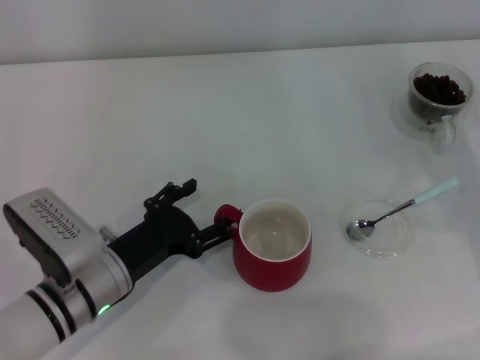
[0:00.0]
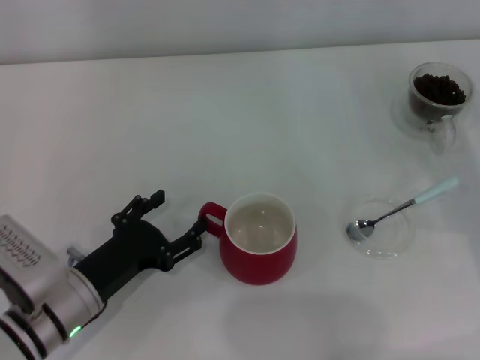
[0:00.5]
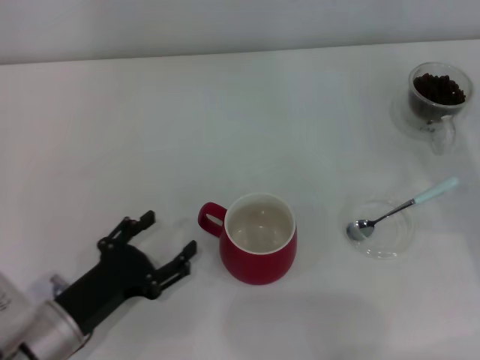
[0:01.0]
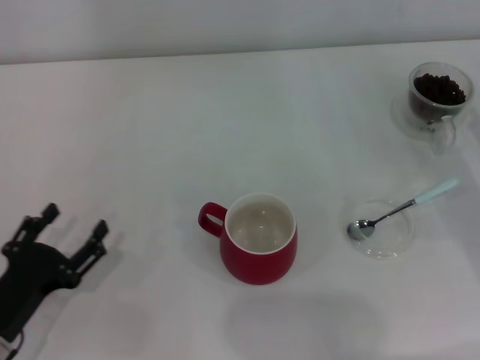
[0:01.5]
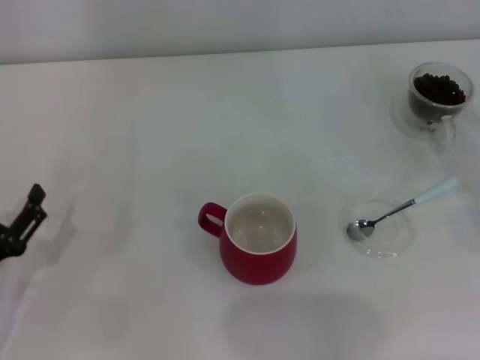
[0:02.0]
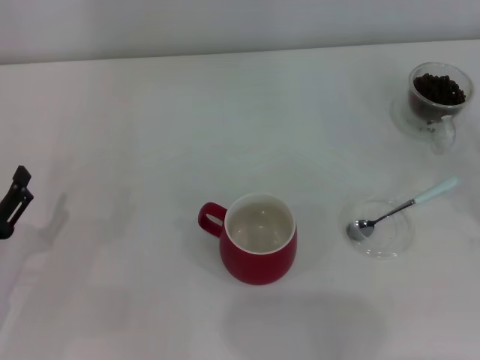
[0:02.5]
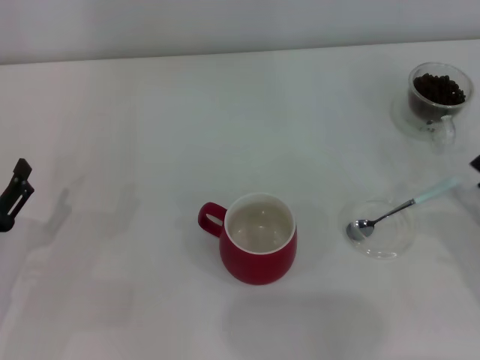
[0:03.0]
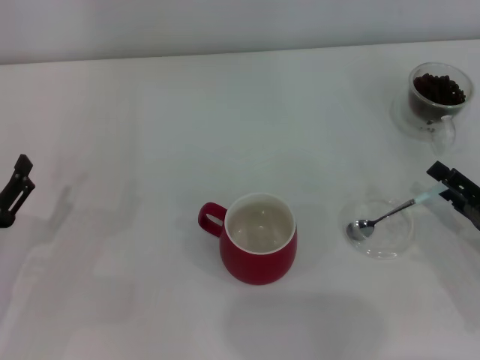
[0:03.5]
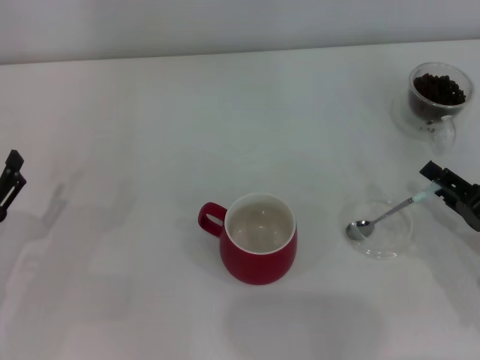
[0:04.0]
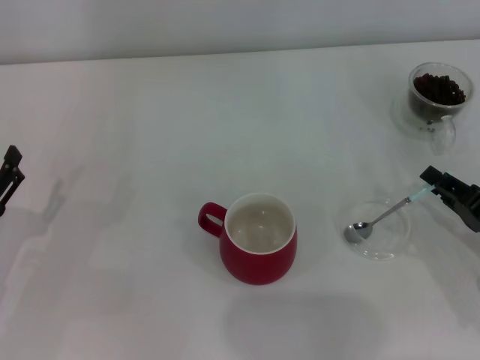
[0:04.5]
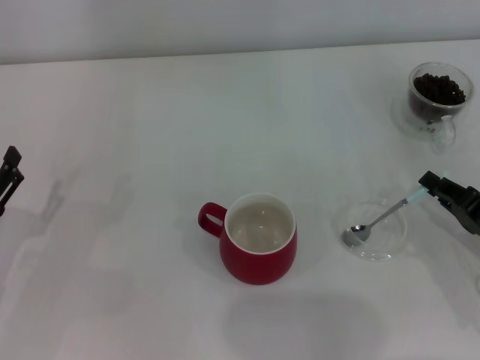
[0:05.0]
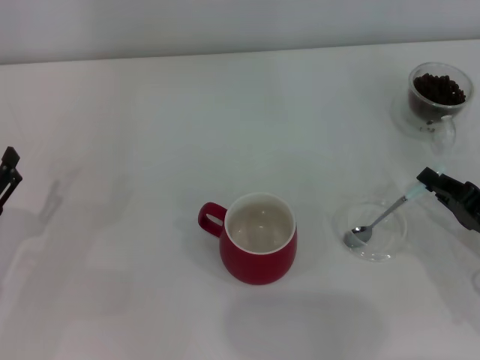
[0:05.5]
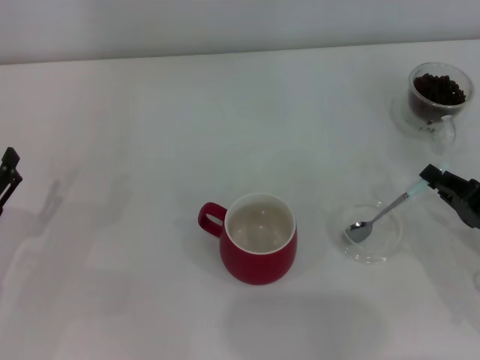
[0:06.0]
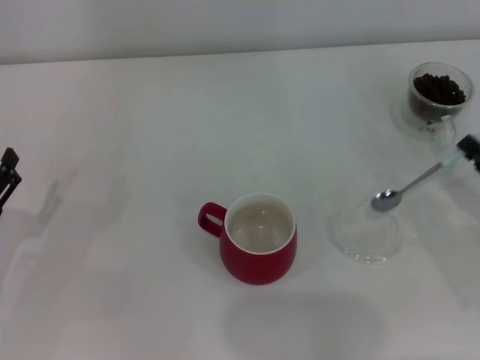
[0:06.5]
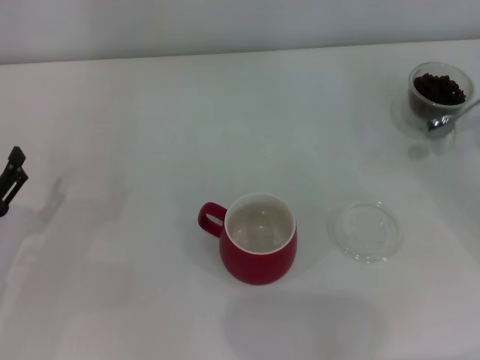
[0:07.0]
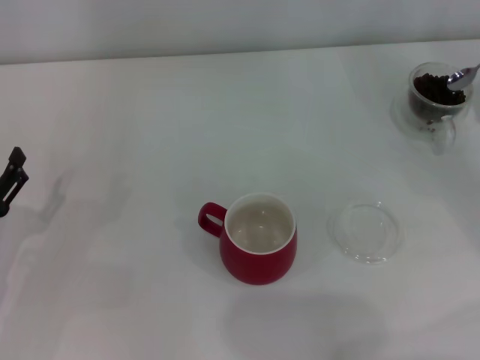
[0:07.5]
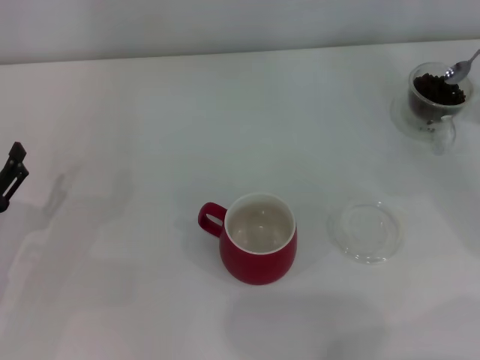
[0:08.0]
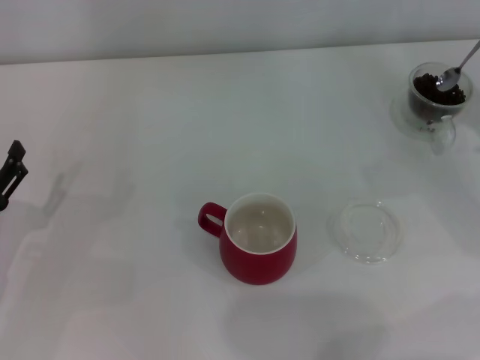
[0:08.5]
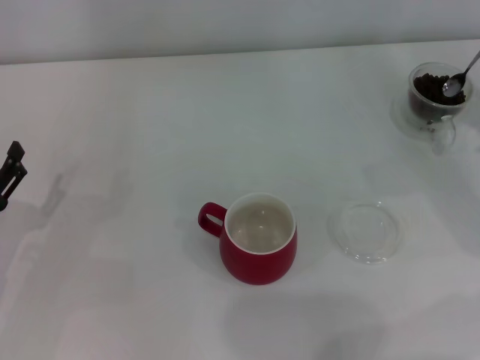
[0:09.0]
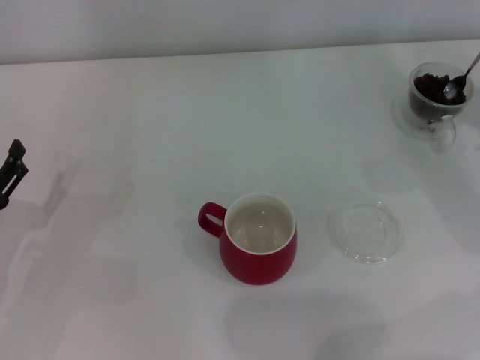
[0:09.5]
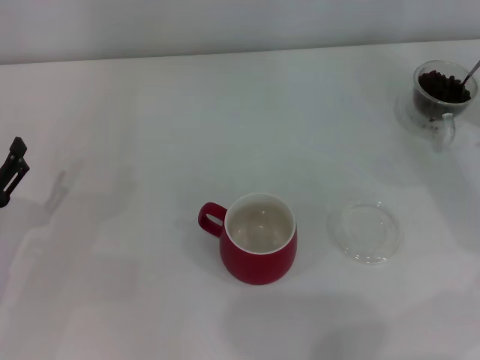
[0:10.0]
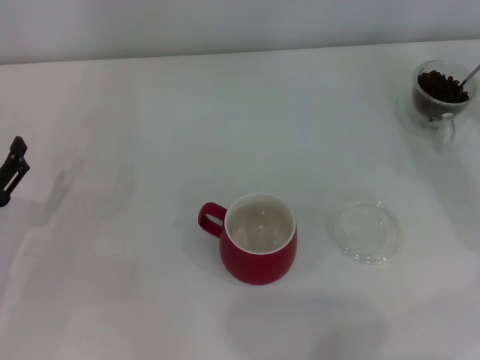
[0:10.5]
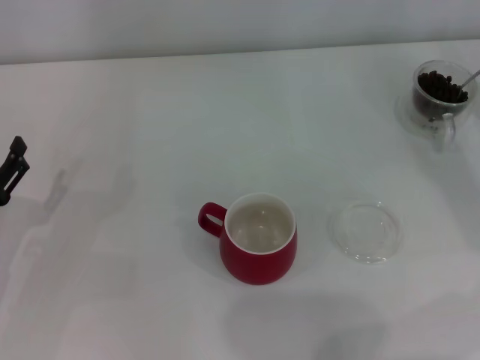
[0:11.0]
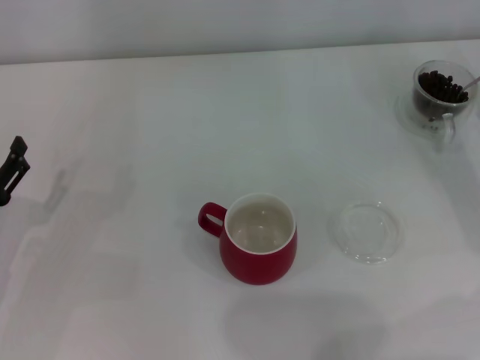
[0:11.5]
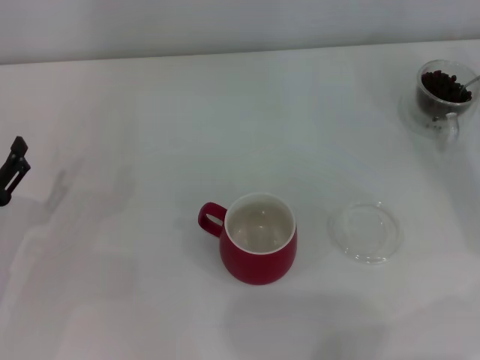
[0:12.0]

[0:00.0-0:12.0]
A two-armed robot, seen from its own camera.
Task of the whole recording: Use a blue spoon to take out the coffee beans from the glass and pour them into the red cup.
Step, 1.5 to 6.5 s: Pick up the spoon with the right gripper.
0.0 to 2.0 s: The left gripper moves to the left and backward, some 15 cm.
2.0 to 4.0 s: The right gripper heads to the left, covering about 10 cm.
4.0 to 6.0 s: The right gripper closes.
6.0 to 8.0 s: The right gripper heads forward, upward and to the right, covering roughly 15 cm.
8.0 to 10.0 s: The grippers move only a little.

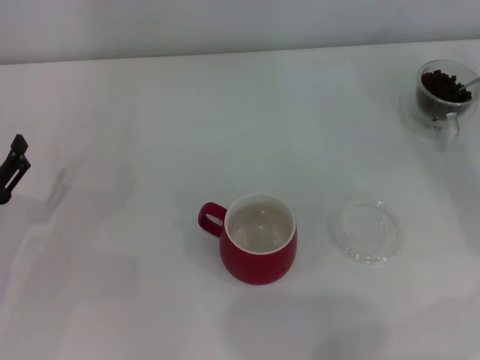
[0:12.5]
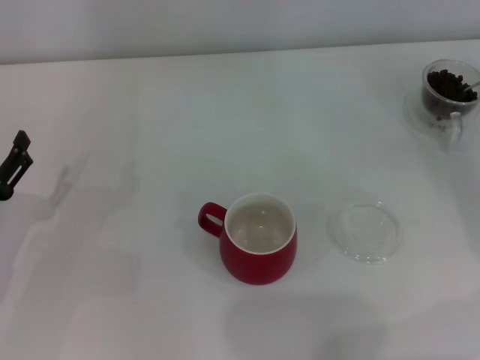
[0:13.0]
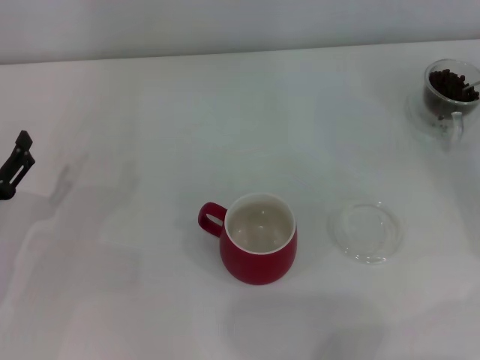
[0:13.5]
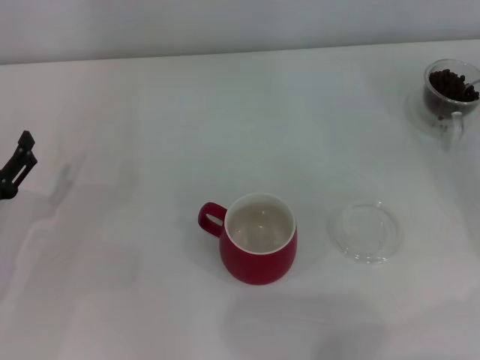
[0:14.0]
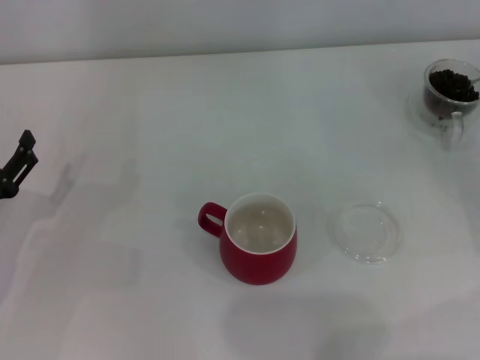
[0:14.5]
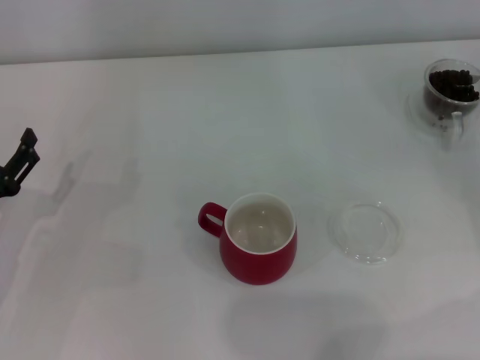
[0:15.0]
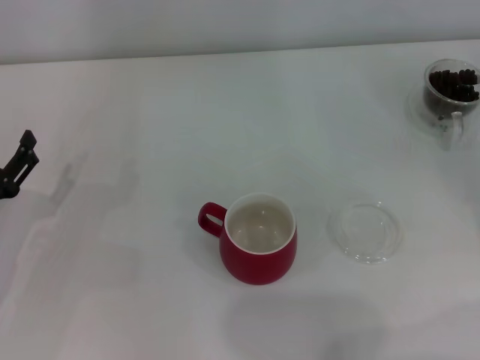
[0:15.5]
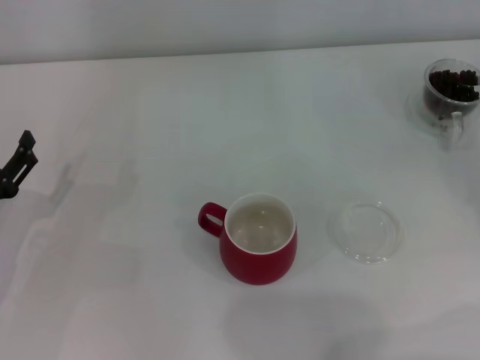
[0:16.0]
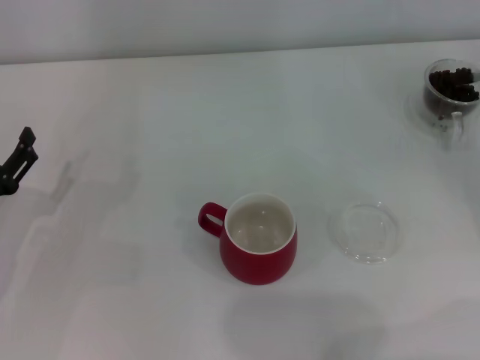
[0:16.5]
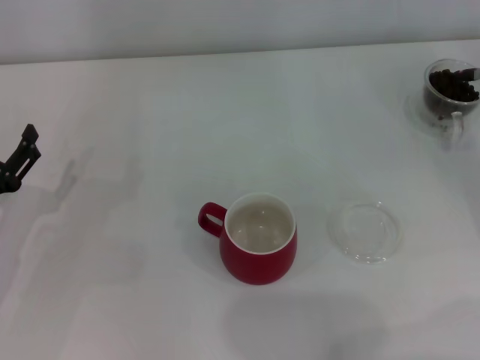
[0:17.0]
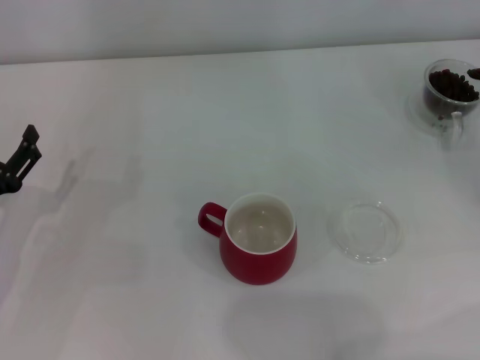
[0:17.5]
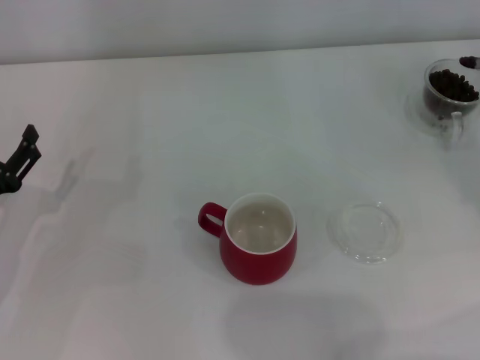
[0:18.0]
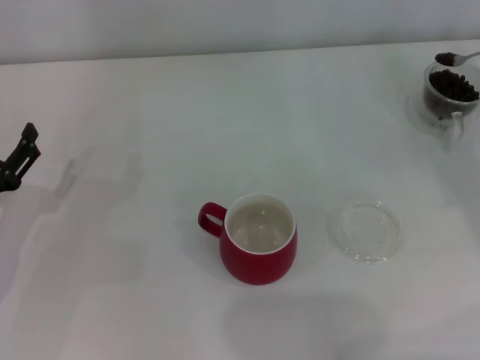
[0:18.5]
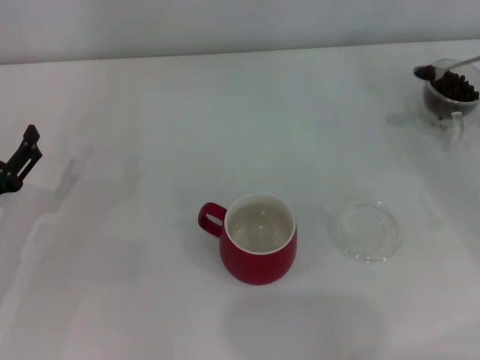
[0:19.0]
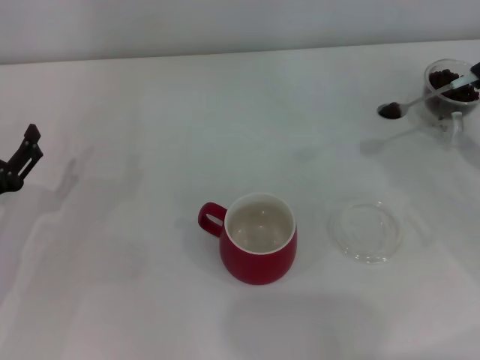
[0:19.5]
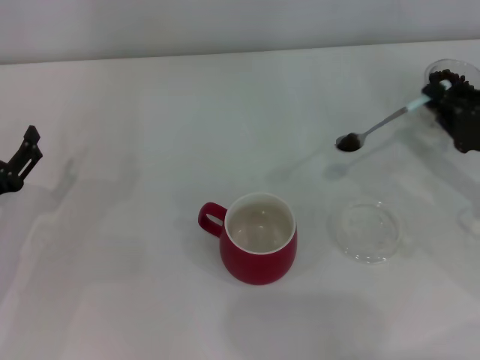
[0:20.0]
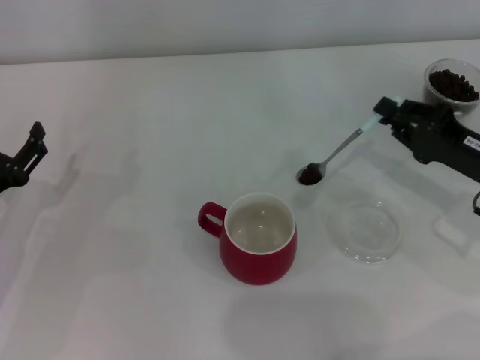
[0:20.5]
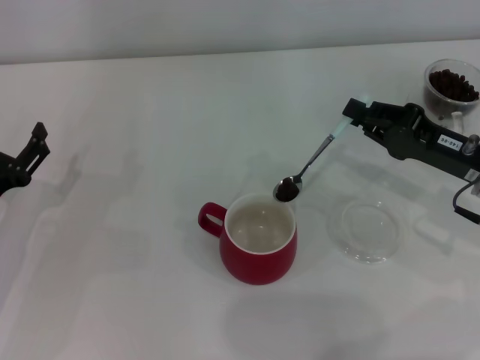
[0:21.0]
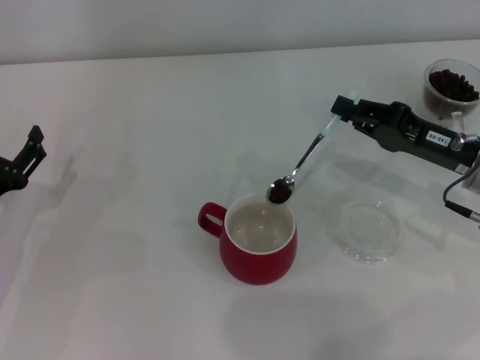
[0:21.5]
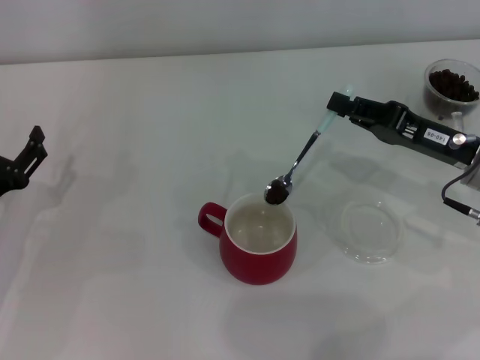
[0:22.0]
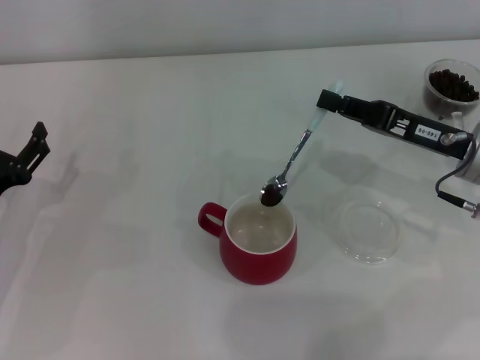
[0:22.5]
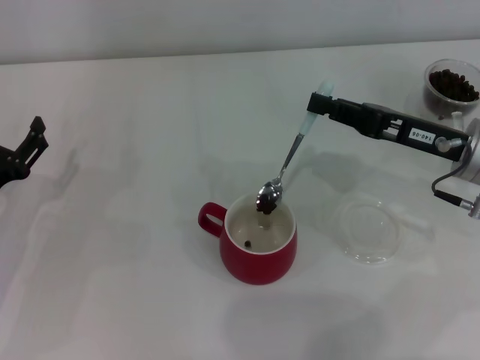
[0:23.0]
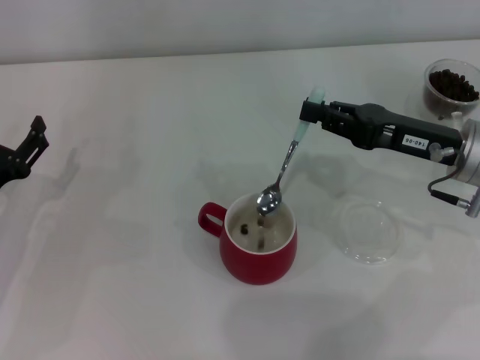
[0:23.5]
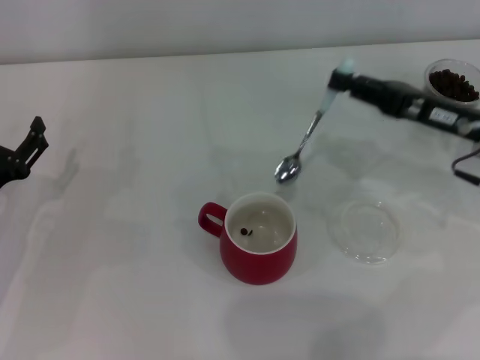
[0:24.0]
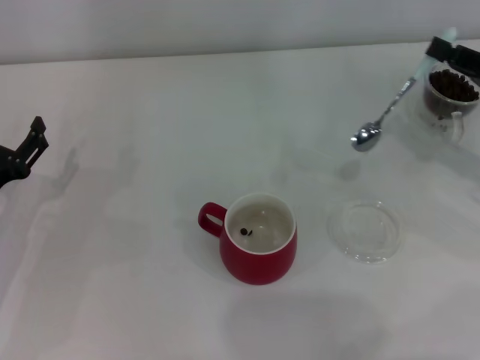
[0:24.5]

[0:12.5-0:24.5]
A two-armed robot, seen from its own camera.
Task of the whole recording: Use a blue spoon to take out the coffee beans from the glass and pour them into the red cup.
Step, 12.5 to 23.5 s: Scoop a spoonful of beans into the cup with the right gripper.
12.5 to 14.5 s: There are only small adjustments of the grippers.
18.5 to 20.5 s: The right gripper goes about 10 cm to the left.
20.5 to 22.5 s: The right gripper changes place by approximately 5 cm.
22.5 to 24.5 s: The right gripper is displaced to the right by roughly 10 cm.

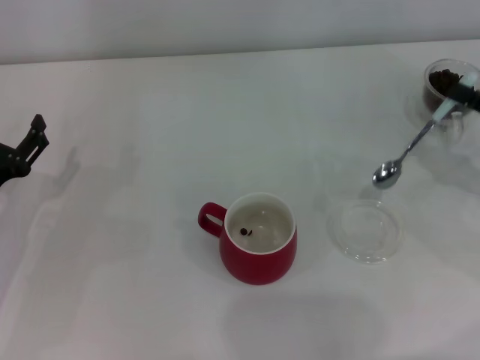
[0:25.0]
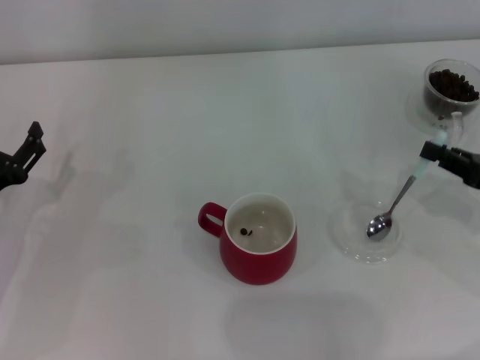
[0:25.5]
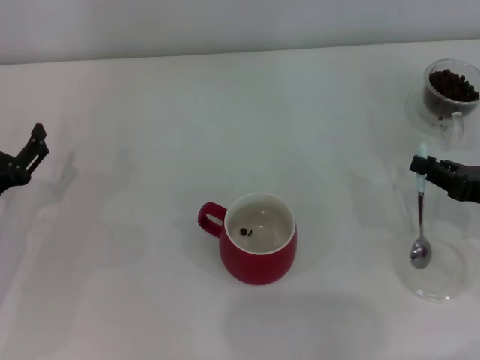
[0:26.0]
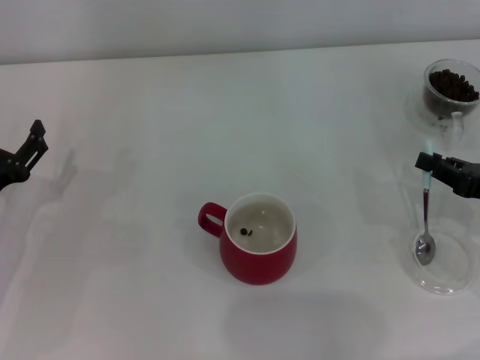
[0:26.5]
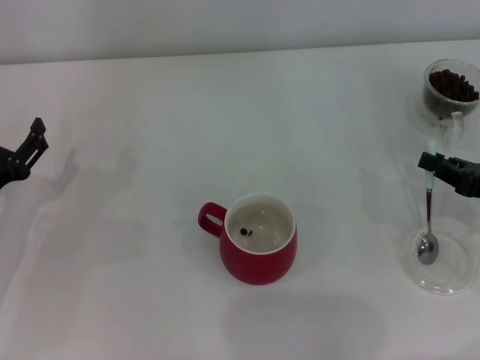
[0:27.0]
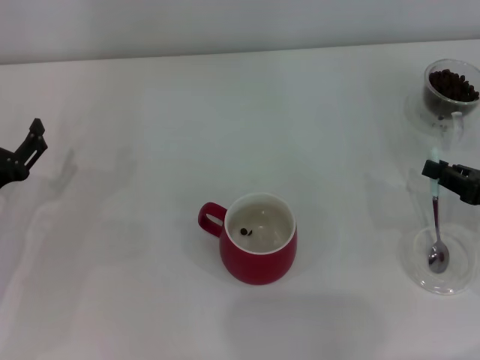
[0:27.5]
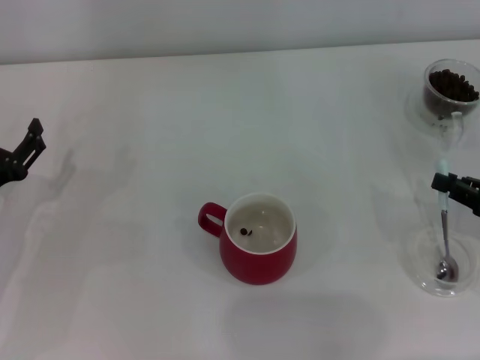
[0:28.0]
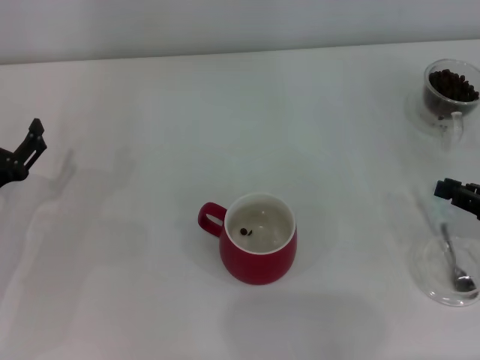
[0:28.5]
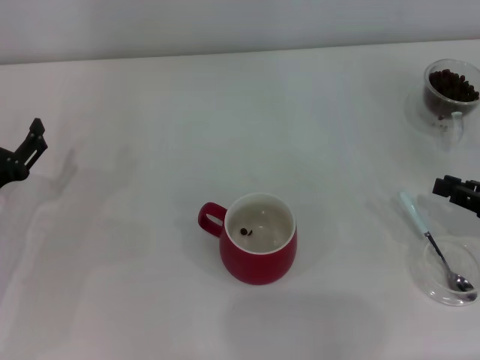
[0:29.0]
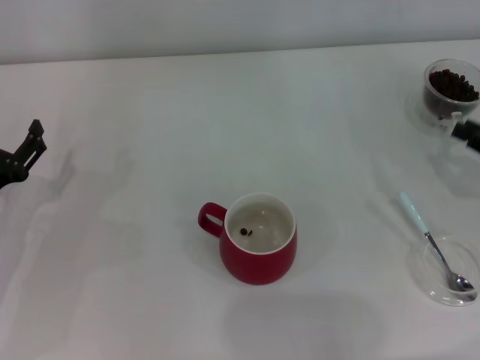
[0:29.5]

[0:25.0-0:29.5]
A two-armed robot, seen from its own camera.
Task of the whole recording: Use a blue spoon to take out the coffee beans from the glass and pour them into the red cup.
Step, 25.0 to 28.5 s: Place the spoon back in its original place with the right gripper.
25.0 to 27.0 s: The right gripper shifts by roughly 5 cm.
27.0 to 29.5 s: The grippers make only small movements.
